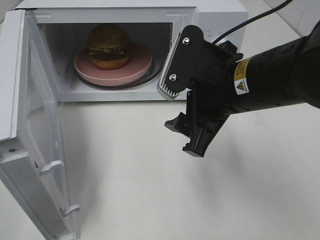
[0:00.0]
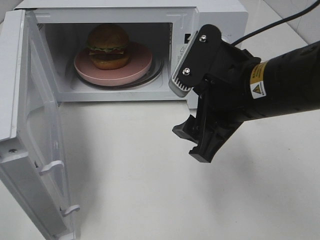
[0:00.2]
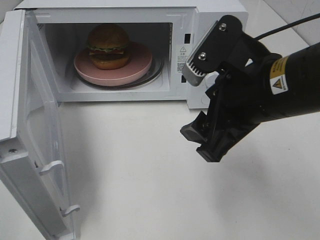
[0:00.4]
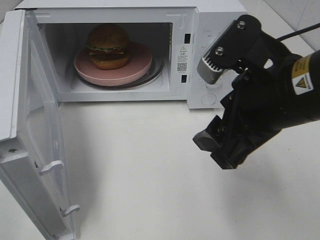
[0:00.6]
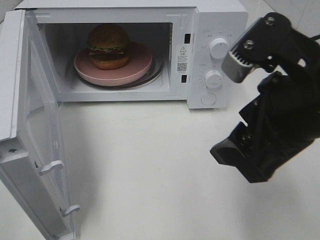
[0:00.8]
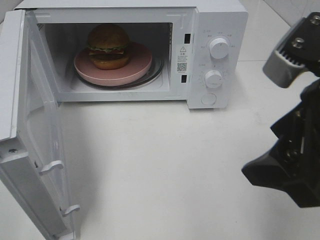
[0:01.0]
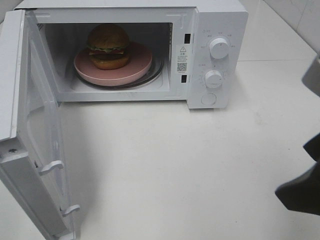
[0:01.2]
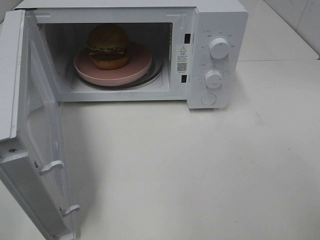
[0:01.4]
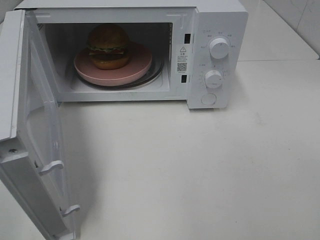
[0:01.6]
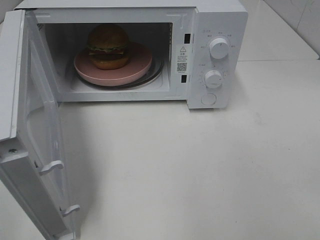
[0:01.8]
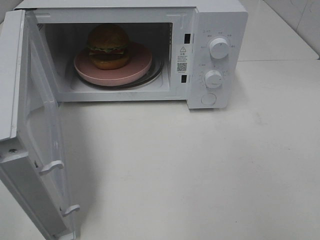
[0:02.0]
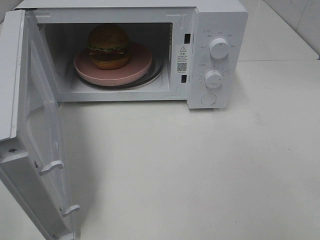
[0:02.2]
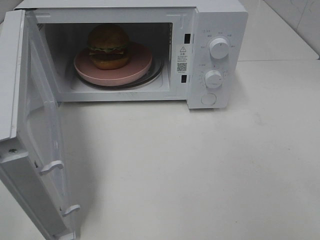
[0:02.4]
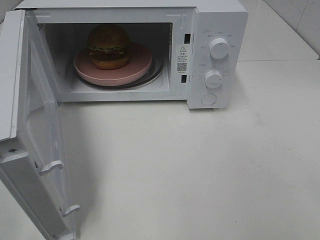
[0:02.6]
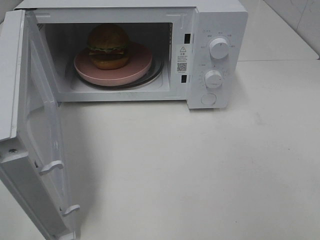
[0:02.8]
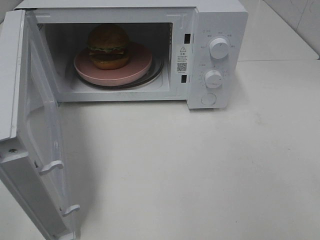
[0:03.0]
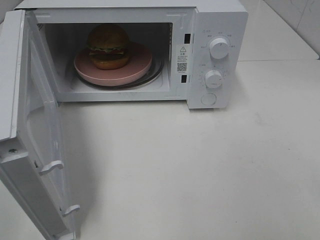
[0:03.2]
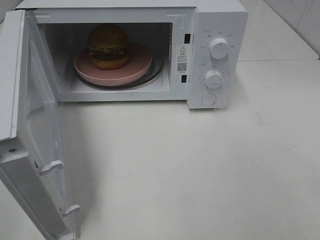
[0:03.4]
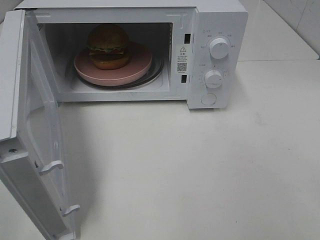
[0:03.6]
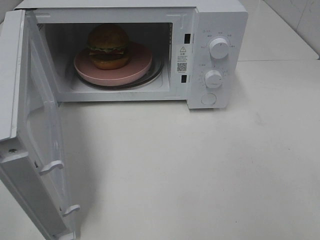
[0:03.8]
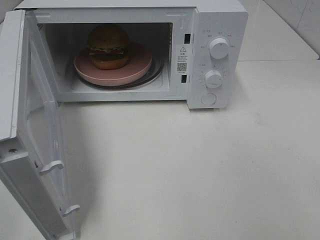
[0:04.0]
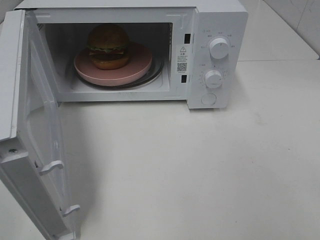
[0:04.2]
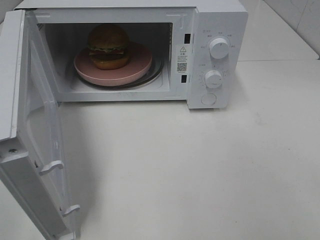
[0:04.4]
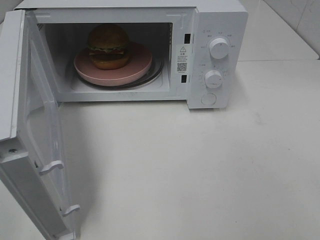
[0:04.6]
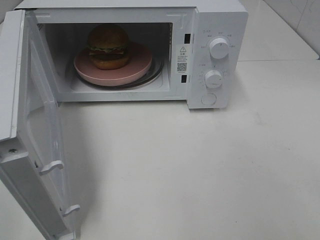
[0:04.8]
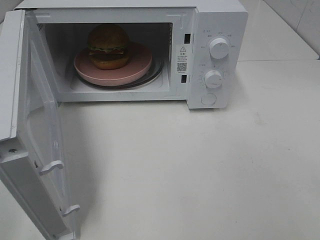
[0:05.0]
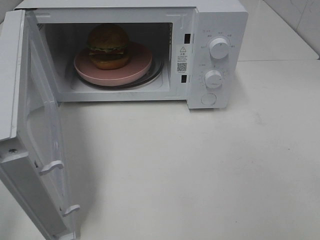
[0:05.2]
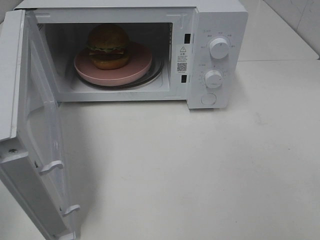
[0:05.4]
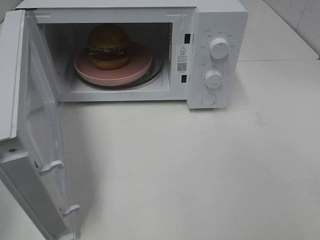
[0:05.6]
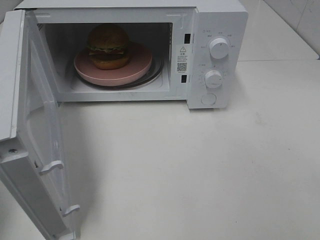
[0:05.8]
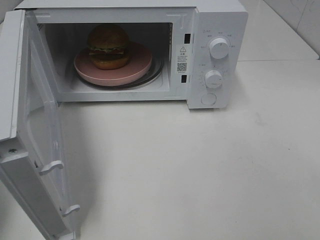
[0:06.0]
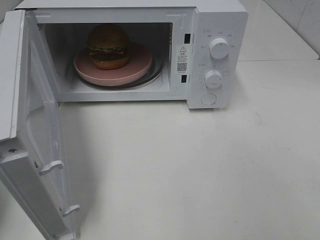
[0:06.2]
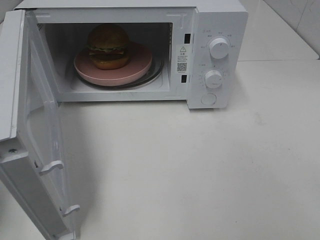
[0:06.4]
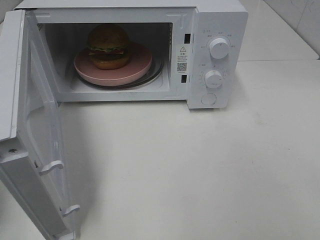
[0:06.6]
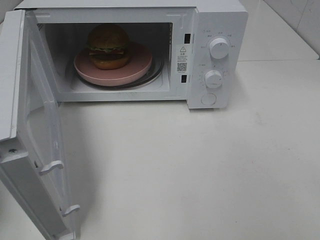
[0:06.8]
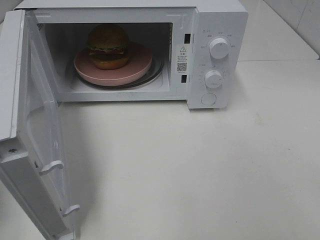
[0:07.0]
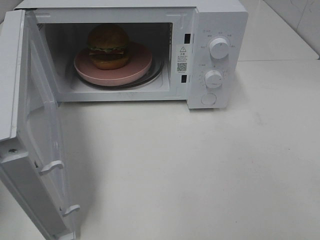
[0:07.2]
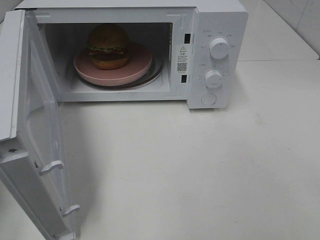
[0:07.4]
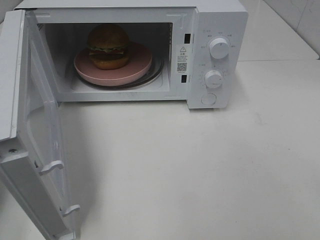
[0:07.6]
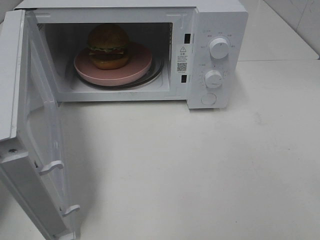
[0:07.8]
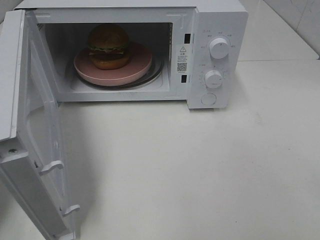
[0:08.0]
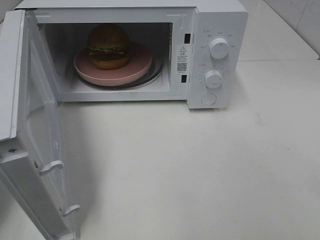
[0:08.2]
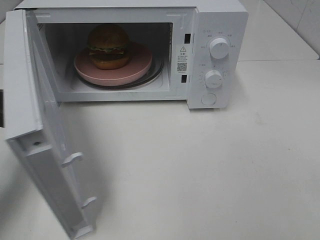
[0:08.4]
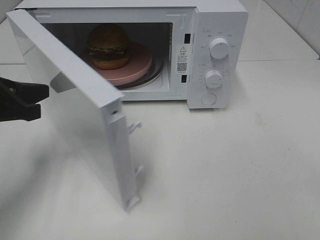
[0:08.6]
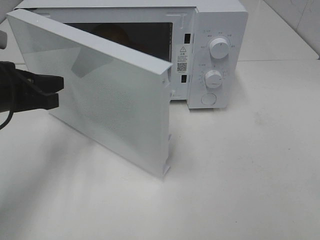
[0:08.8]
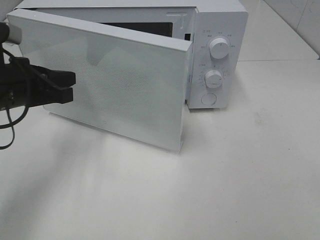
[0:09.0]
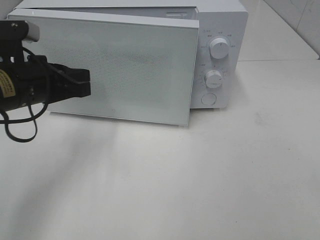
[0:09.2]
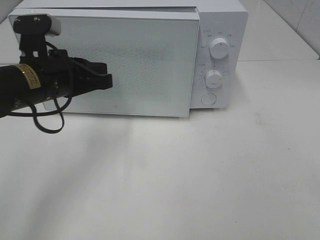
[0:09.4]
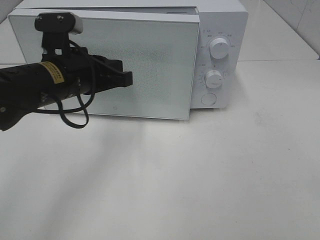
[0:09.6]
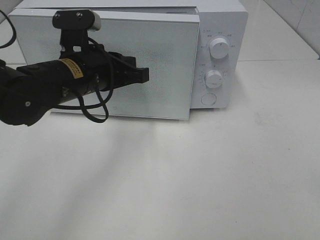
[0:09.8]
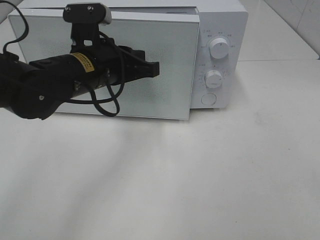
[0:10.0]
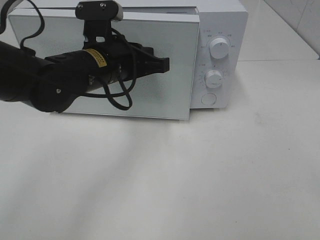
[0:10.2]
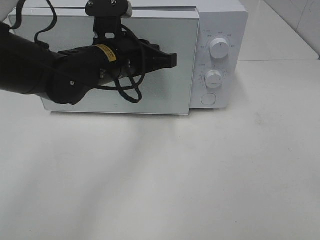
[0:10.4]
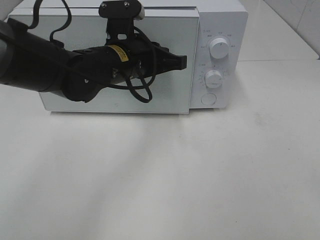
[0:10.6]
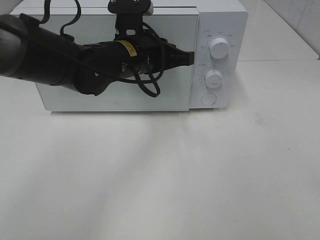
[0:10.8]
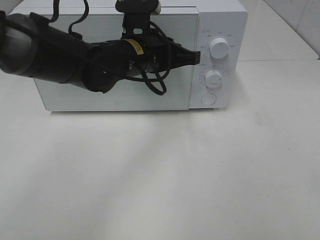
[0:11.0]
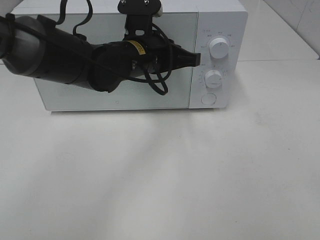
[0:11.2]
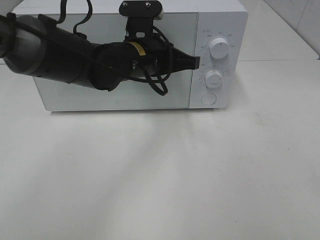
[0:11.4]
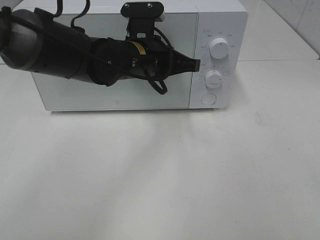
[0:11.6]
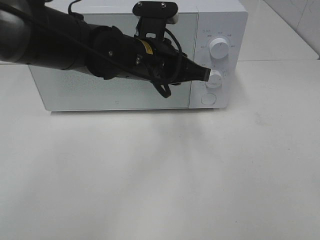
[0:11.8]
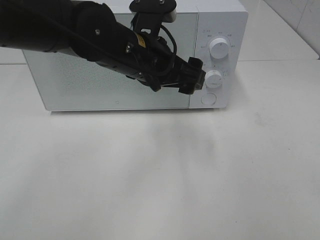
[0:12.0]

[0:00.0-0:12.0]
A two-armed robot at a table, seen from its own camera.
Task of the whole recording: Heat the burger.
Step, 0:00.0 to 0:11.6: Left hand: close the microwave door.
0:00.0 to 0:01.6: The right gripper travels backward, to the right and upward by approximately 25 cm.
0:03.0 to 0:04.4: Both grippers stay about where they are.
0:07.6 to 0:09.0: The left gripper shifts some 15 cm to the right and forward.
0:09.0 to 0:10.4: The left gripper is displaced to the right by about 15 cm.
0:10.4 to 0:12.0: The left gripper changes place by roughly 5 cm, and opens up.

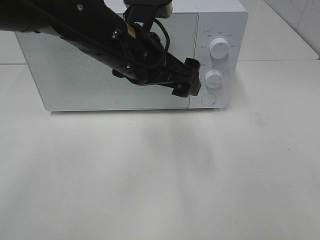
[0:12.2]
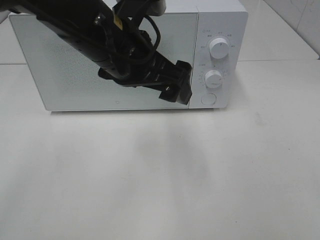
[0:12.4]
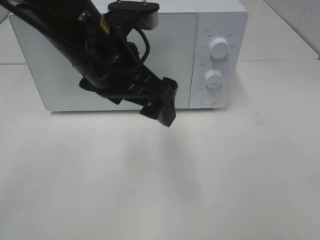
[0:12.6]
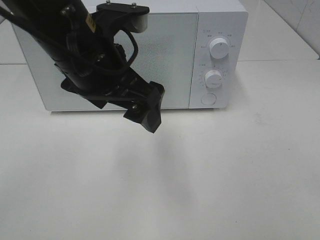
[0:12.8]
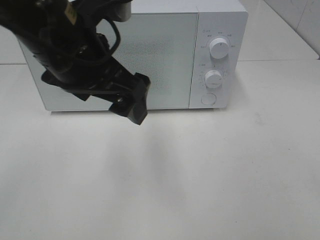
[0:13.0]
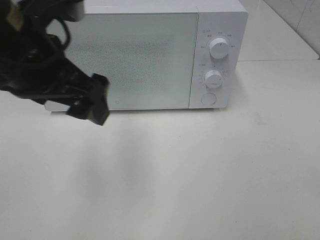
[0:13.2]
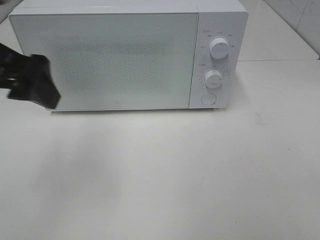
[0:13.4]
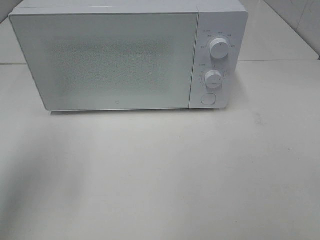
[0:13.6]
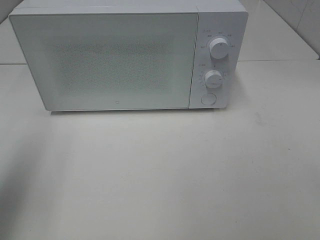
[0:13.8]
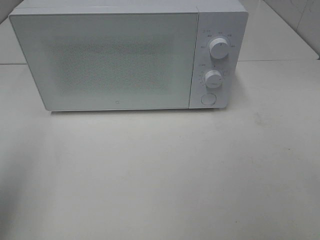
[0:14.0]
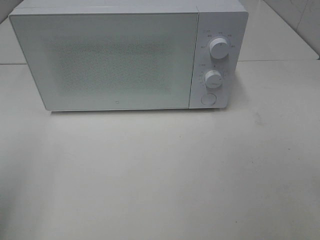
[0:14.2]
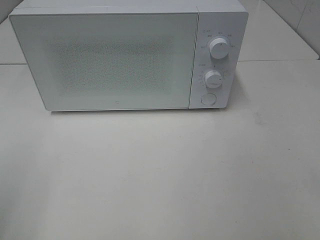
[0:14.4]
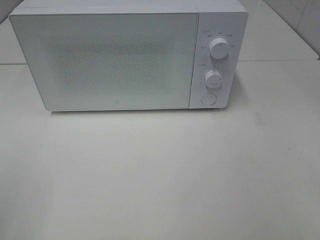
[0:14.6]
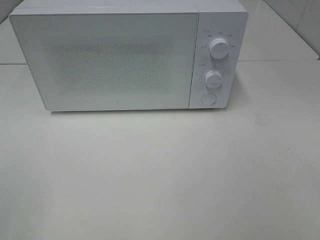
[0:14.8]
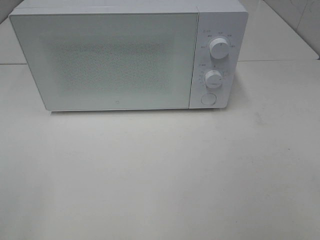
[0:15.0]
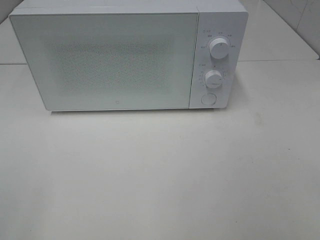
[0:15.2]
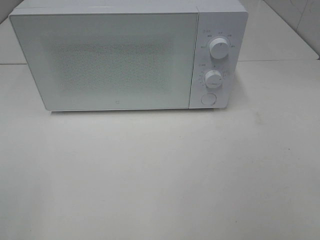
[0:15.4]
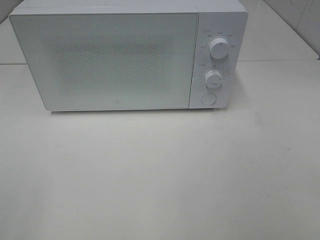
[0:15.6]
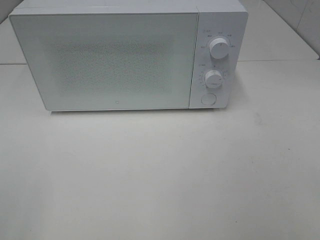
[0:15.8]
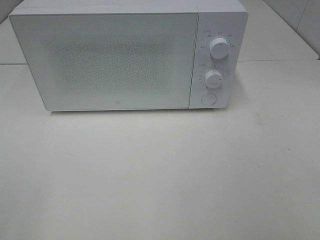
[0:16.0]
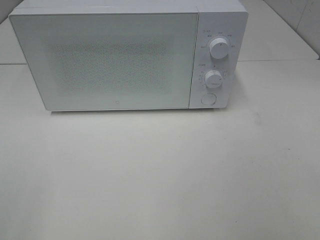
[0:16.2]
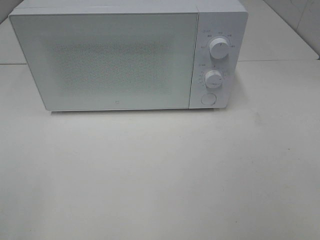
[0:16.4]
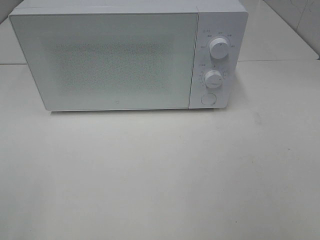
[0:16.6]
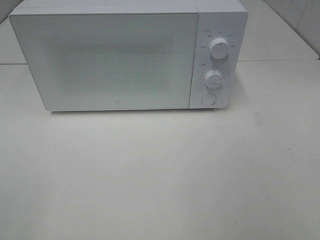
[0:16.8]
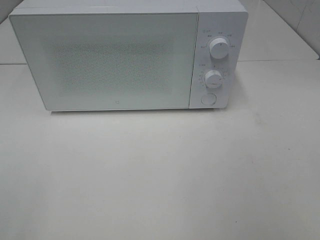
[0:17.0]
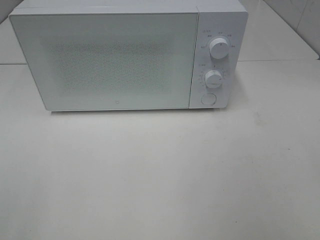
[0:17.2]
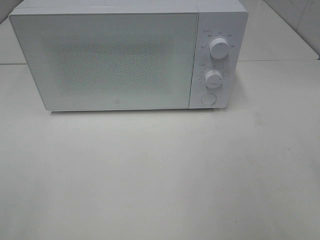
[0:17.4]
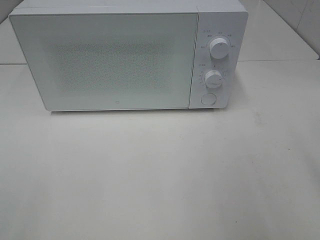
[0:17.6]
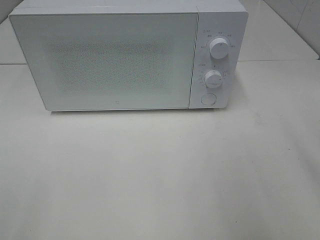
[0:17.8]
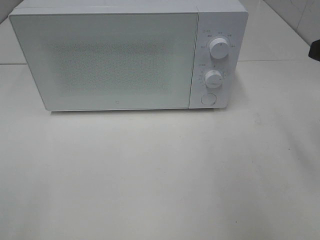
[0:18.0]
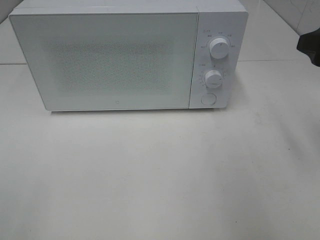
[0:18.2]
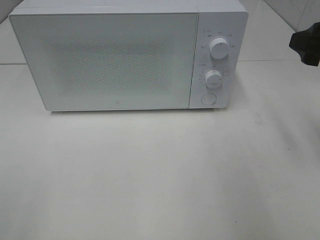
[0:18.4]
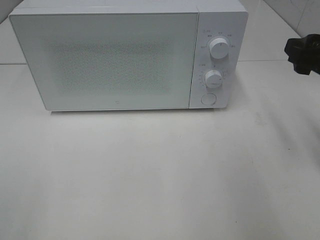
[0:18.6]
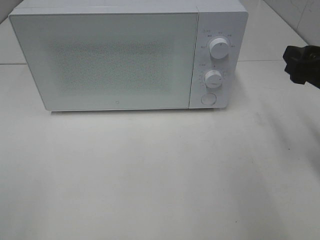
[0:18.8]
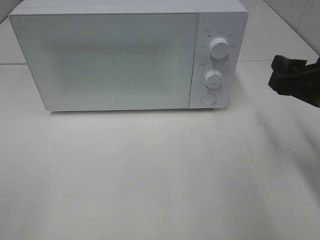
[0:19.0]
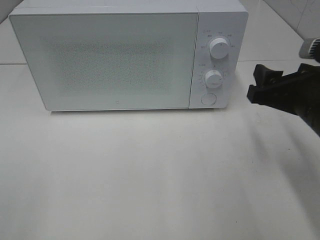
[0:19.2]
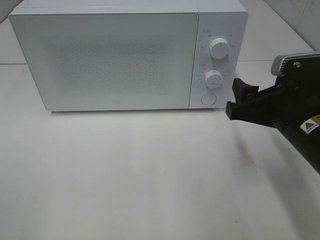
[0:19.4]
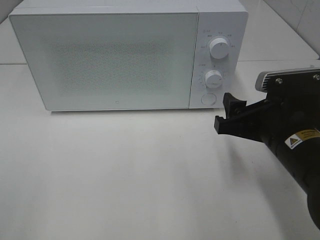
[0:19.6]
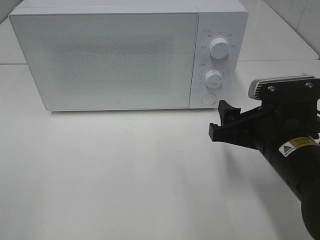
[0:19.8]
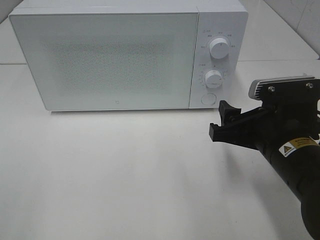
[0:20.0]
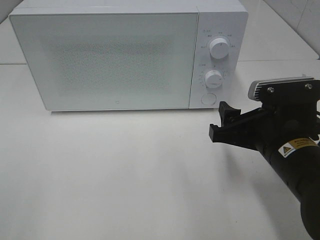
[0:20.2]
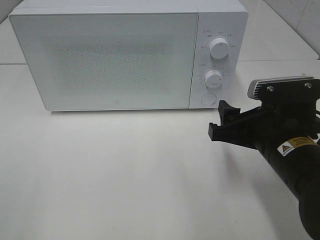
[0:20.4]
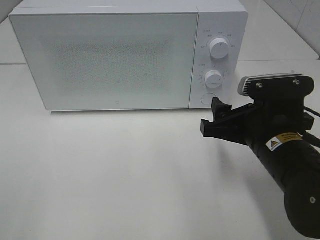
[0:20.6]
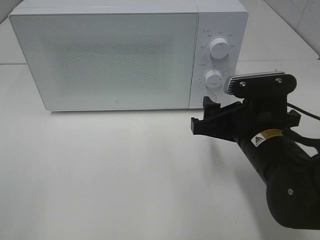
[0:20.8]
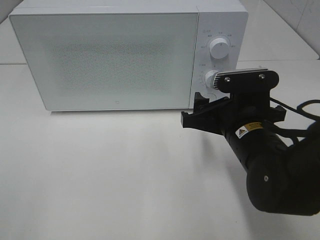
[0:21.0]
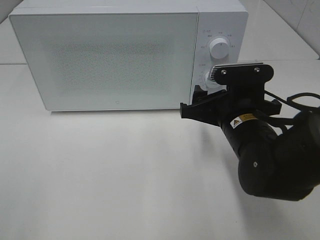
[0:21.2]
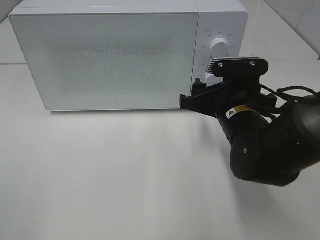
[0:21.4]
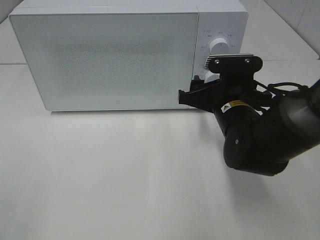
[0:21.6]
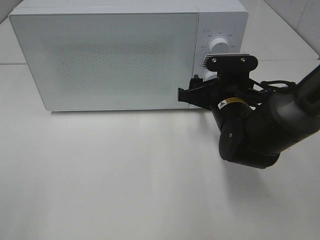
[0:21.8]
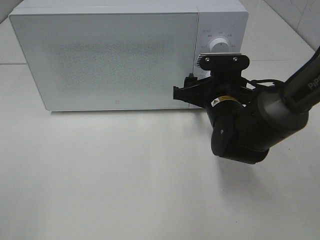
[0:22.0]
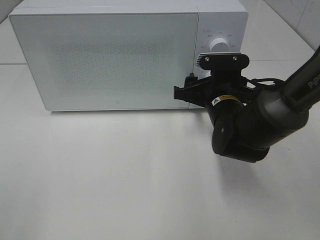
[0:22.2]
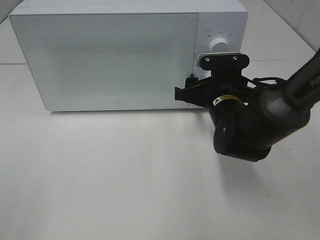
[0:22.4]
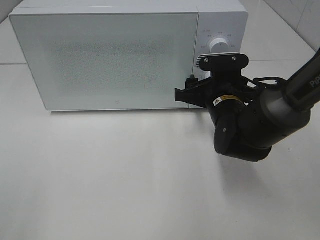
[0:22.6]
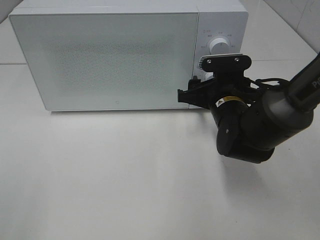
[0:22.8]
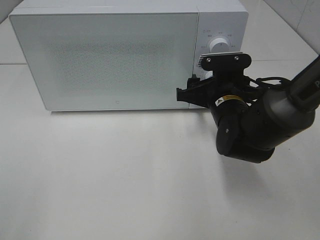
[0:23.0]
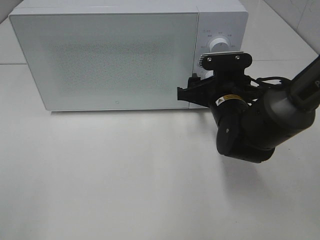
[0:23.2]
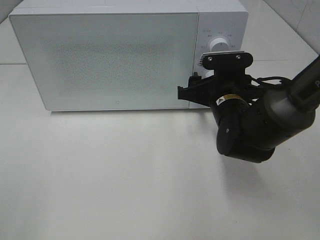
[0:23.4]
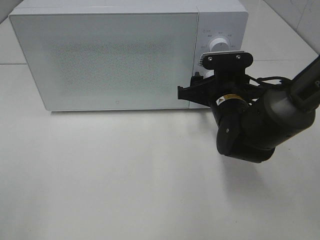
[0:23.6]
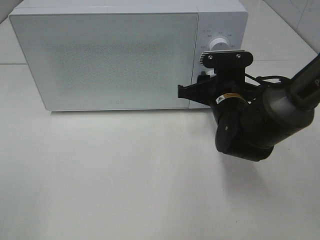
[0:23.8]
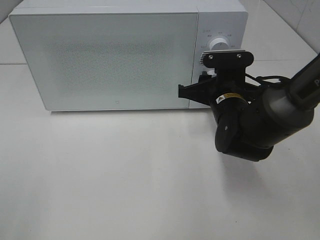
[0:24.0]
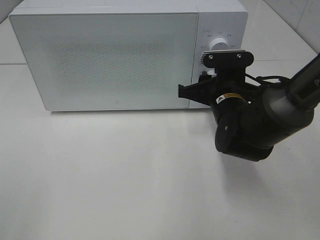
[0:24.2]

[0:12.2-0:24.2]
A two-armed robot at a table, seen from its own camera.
Task of the whole recording: Heat the burger.
0:12.2 to 0:13.8: The left gripper is displaced to the left and backward by approximately 30 cm.
0:13.8 to 0:15.2: The left gripper is displaced backward by about 15 cm.
0:16.6 to 0:18.2: The right gripper heads forward, covering approximately 20 cm.
0:18.2 to 0:19.8: The right gripper is displaced downward and to the left by roughly 15 cm.
0:19.8 to 0:21.2: The right gripper heads forward, covering approximately 5 cm.
0:21.2 to 0:22.6: The right gripper goes approximately 5 cm forward.
0:22.6 to 0:24.2: The two grippers keep their place.
